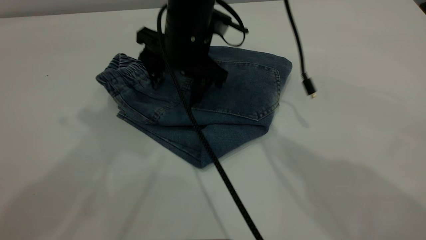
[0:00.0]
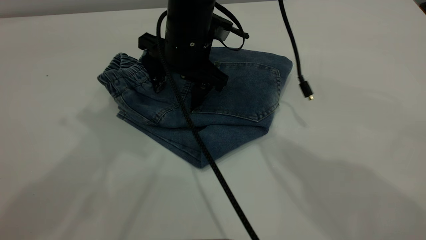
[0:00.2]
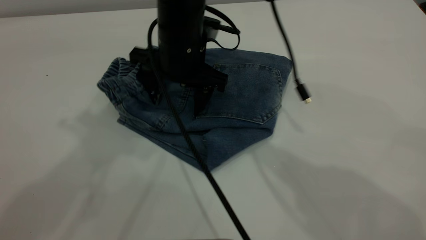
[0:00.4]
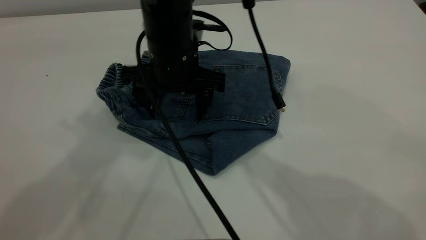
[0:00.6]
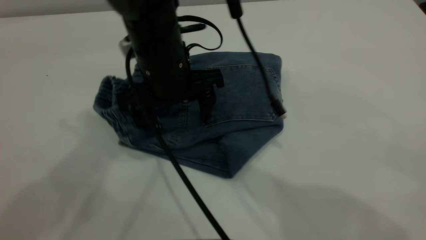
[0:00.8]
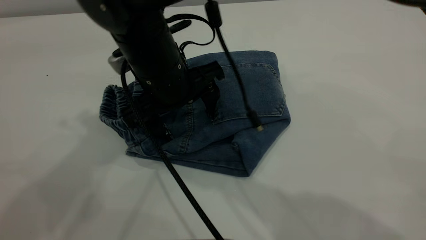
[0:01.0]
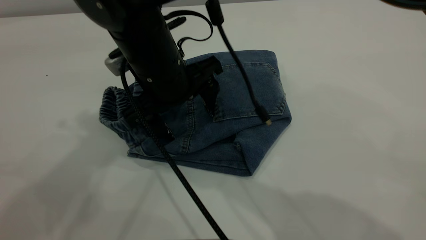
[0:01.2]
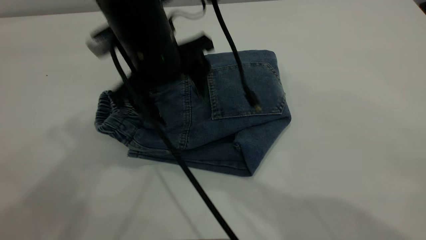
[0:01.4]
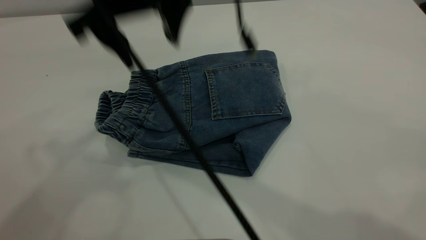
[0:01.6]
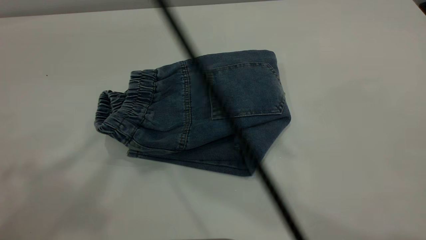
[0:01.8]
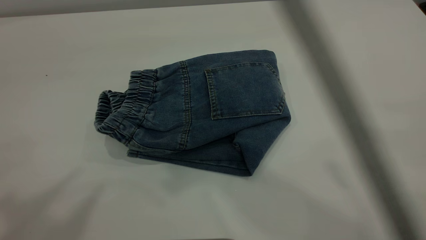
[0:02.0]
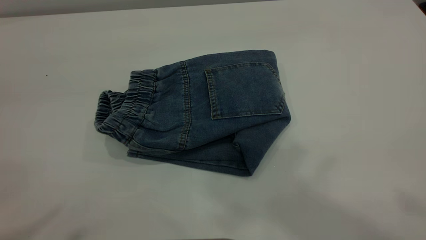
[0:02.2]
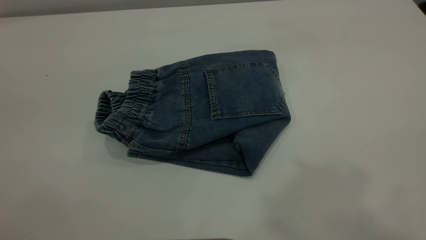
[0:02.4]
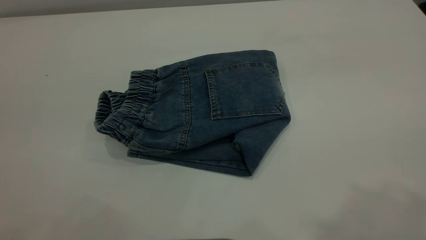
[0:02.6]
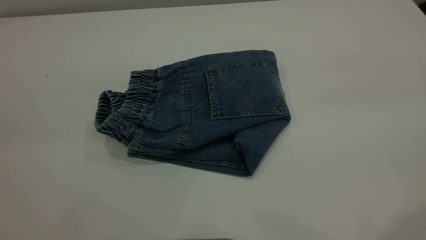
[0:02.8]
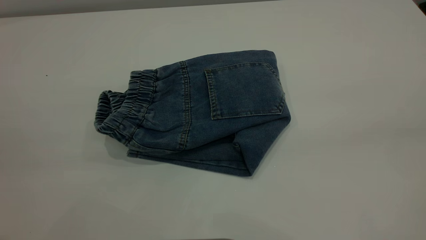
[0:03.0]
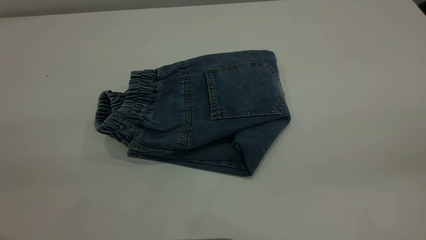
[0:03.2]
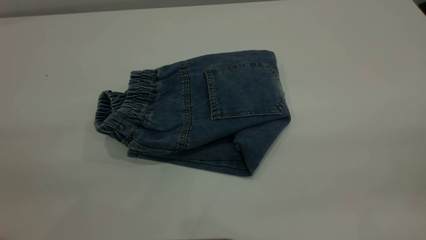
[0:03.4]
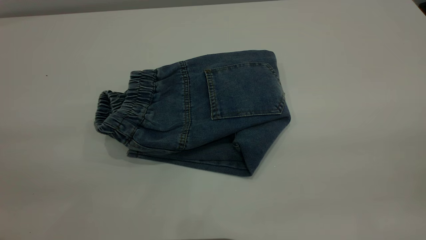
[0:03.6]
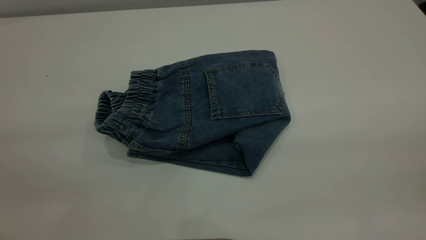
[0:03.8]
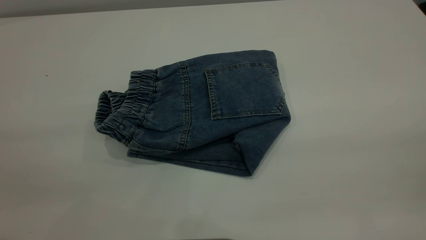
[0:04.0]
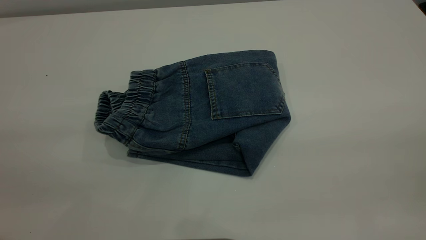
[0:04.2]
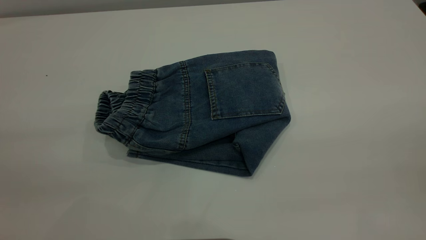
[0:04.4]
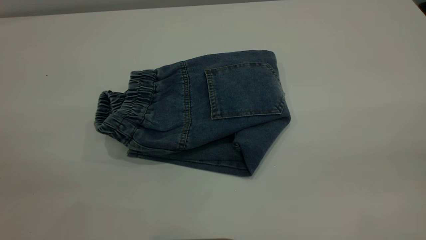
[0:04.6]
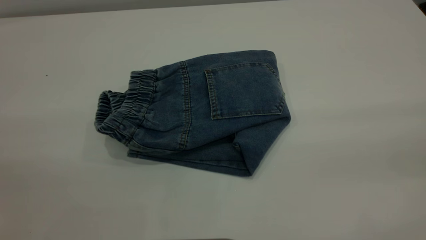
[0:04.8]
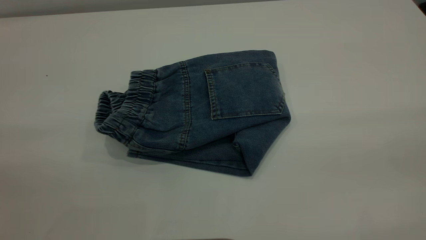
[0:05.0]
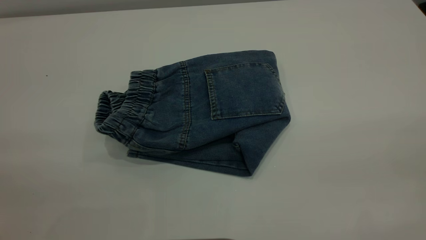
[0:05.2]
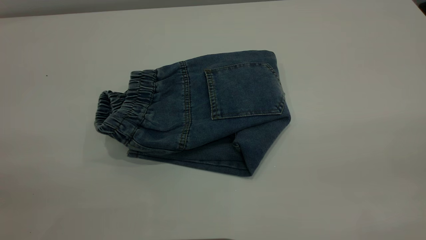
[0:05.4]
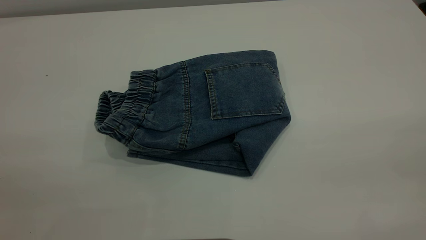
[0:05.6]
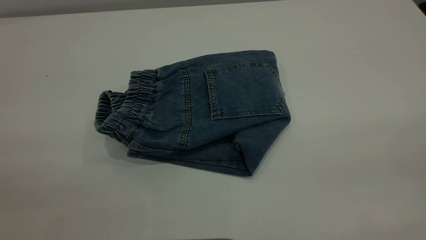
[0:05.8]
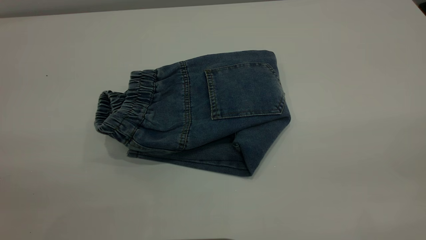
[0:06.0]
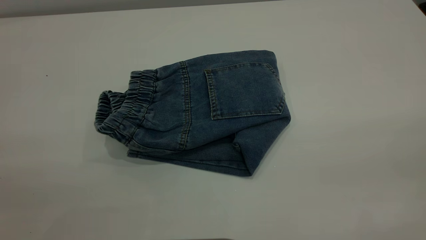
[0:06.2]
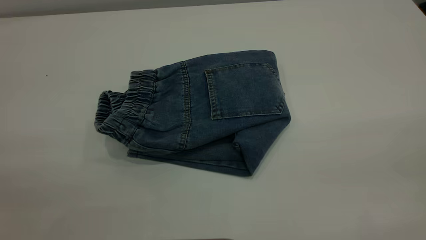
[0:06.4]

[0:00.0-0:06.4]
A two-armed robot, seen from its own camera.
0:00.0 to 0:01.6: The left gripper is displaced backward and upward by about 10 cm, while the right gripper moves upward and backward, roughly 20 cm.
0:01.6 to 0:03.2: The right gripper heads to the right and backward, covering some 40 cm. Meanwhile the left gripper goes some 20 cm downward and backward.
